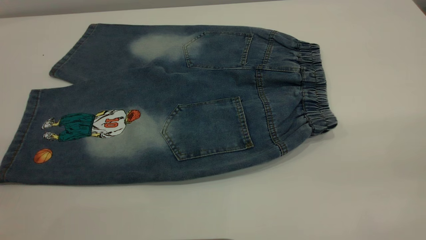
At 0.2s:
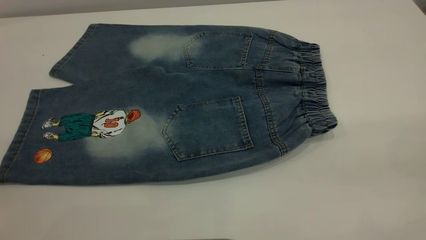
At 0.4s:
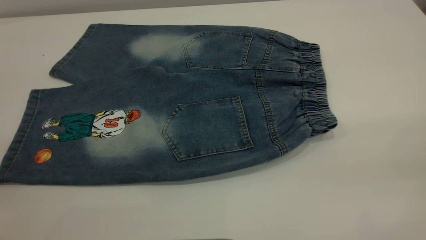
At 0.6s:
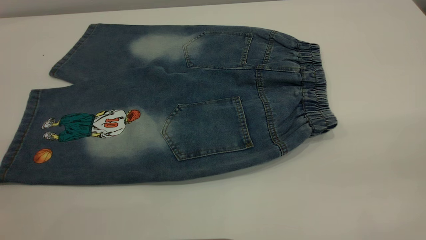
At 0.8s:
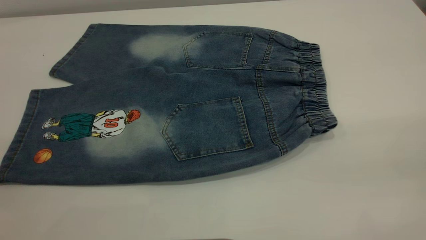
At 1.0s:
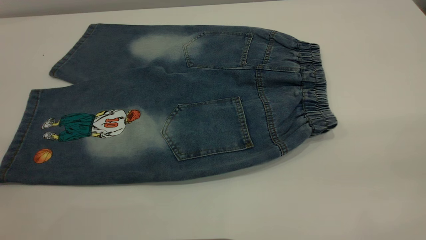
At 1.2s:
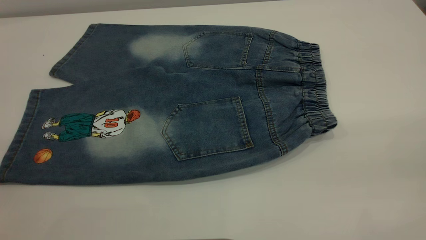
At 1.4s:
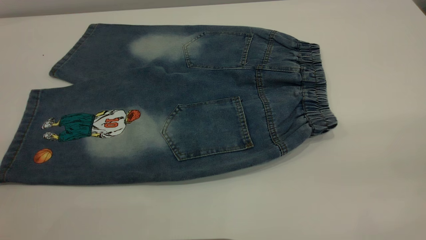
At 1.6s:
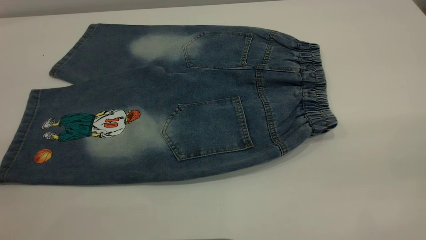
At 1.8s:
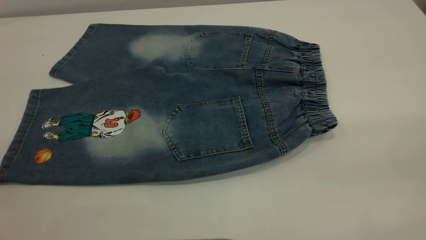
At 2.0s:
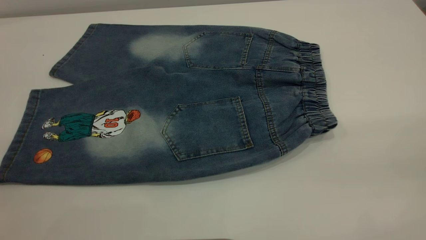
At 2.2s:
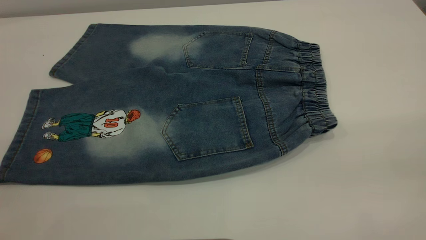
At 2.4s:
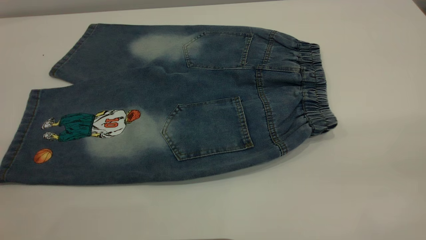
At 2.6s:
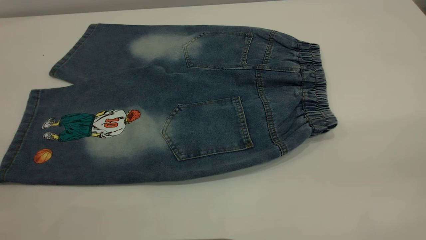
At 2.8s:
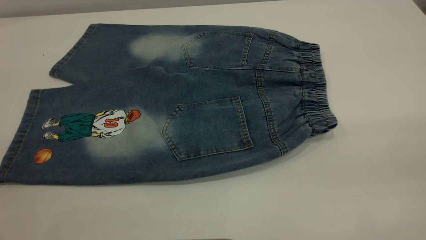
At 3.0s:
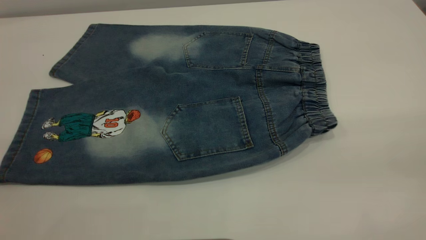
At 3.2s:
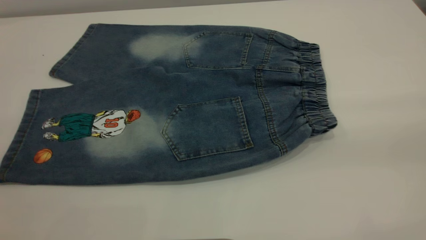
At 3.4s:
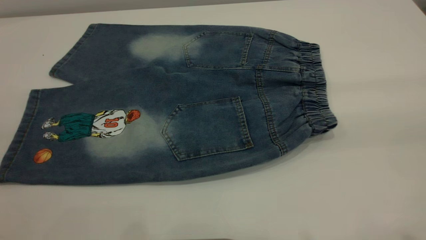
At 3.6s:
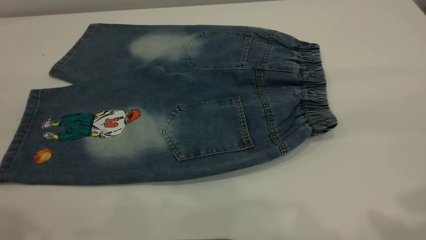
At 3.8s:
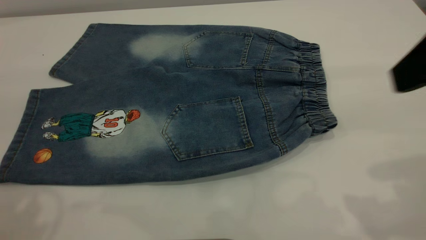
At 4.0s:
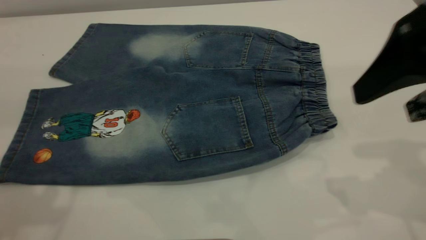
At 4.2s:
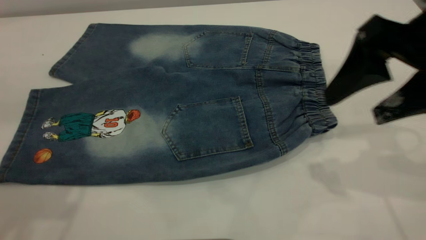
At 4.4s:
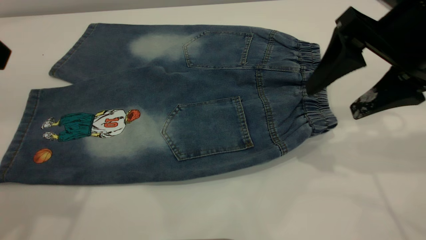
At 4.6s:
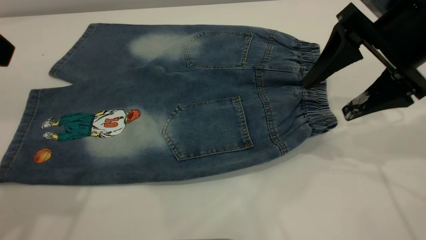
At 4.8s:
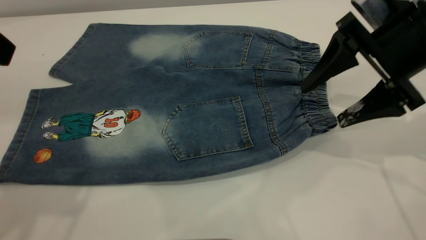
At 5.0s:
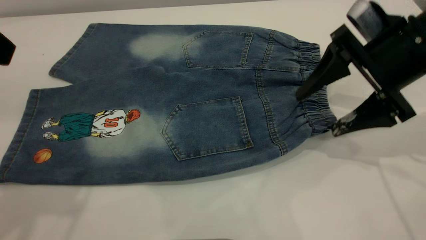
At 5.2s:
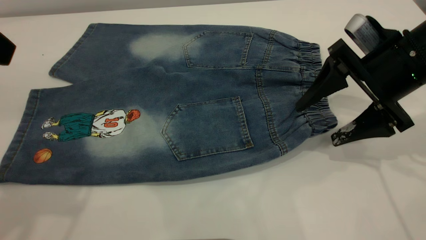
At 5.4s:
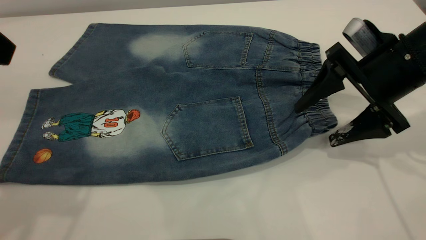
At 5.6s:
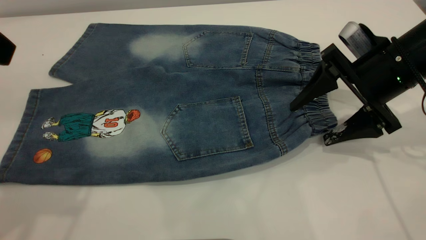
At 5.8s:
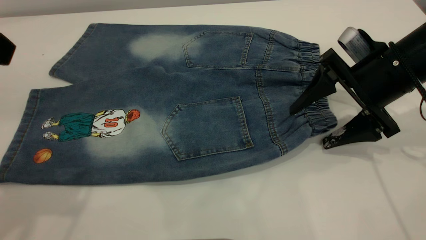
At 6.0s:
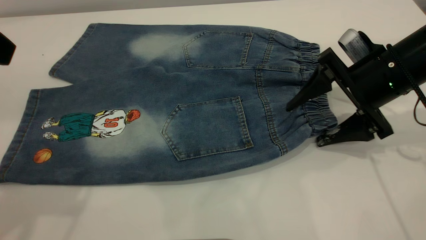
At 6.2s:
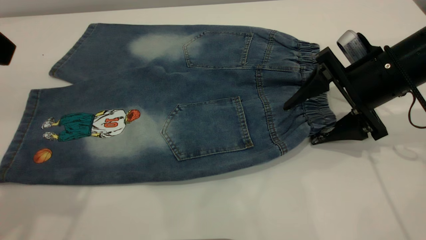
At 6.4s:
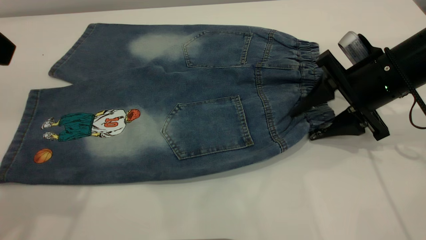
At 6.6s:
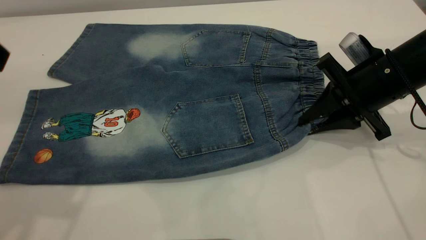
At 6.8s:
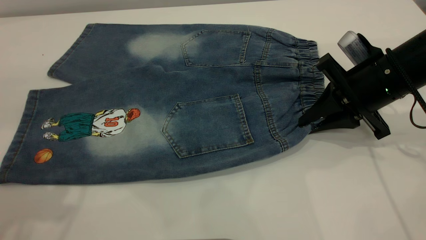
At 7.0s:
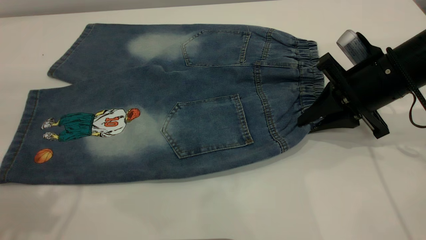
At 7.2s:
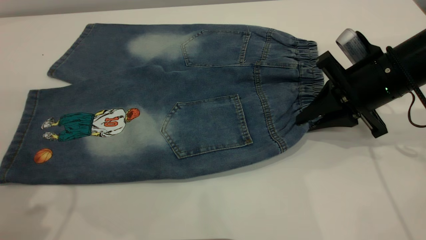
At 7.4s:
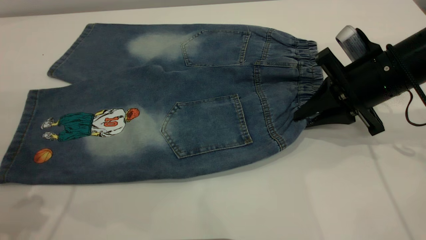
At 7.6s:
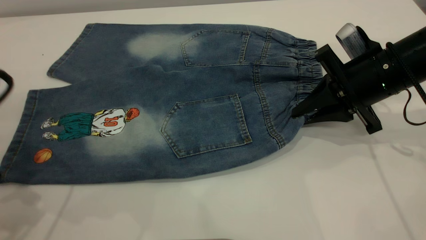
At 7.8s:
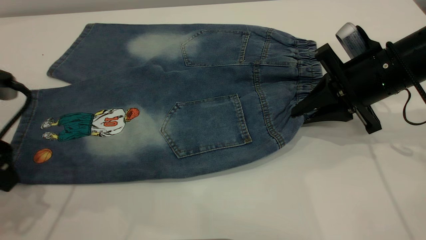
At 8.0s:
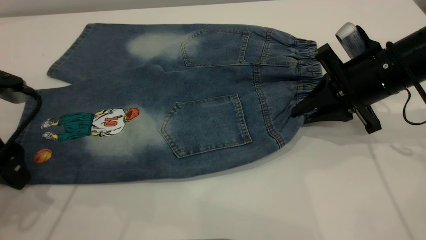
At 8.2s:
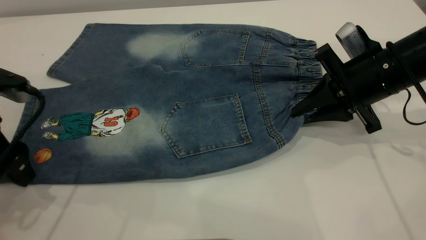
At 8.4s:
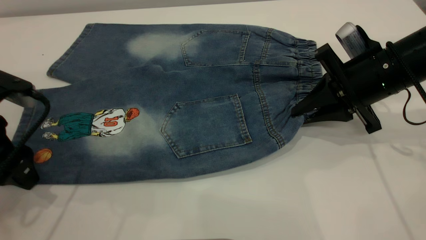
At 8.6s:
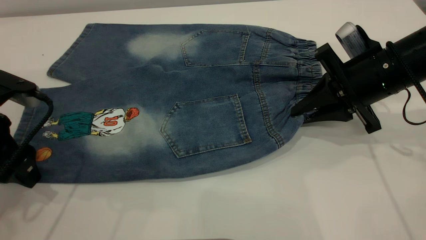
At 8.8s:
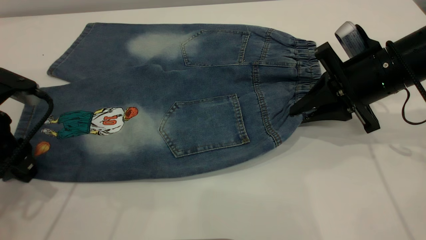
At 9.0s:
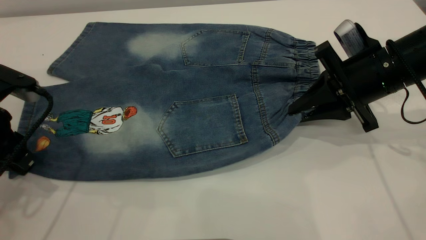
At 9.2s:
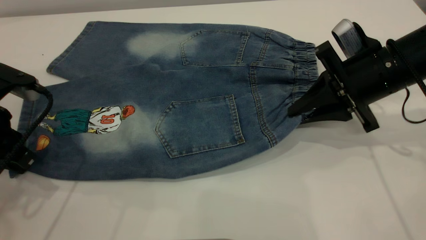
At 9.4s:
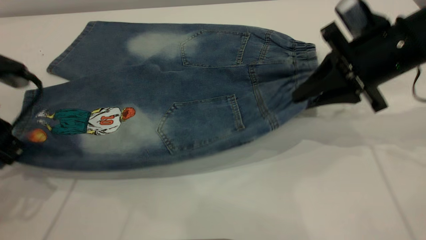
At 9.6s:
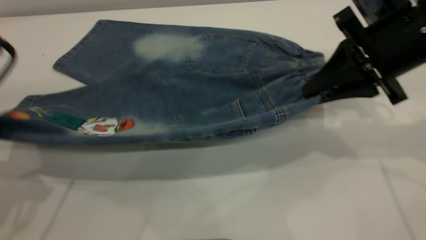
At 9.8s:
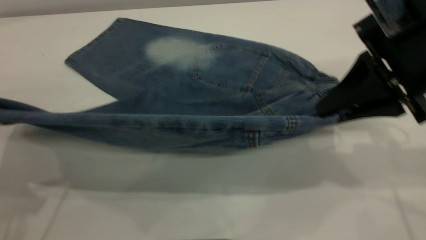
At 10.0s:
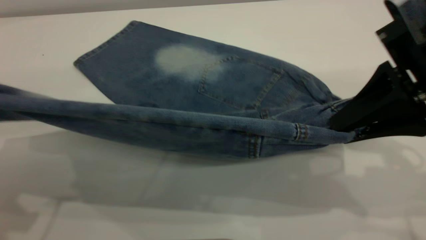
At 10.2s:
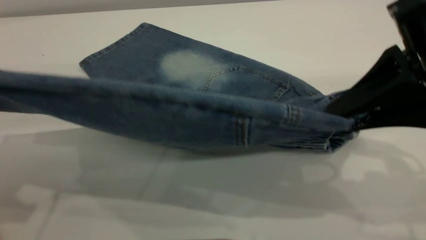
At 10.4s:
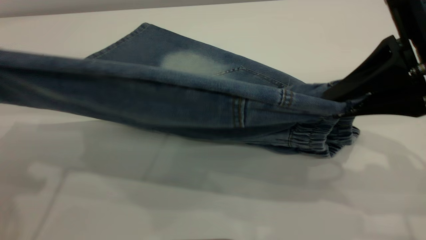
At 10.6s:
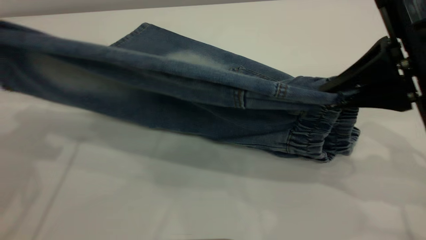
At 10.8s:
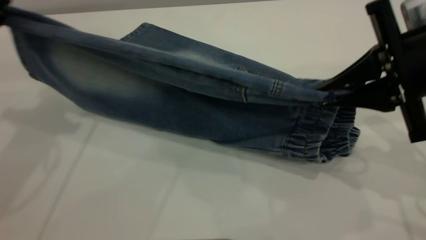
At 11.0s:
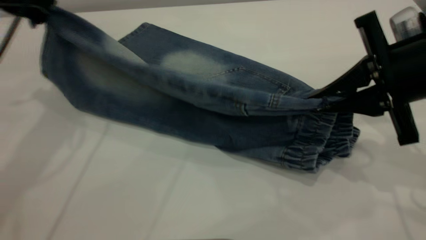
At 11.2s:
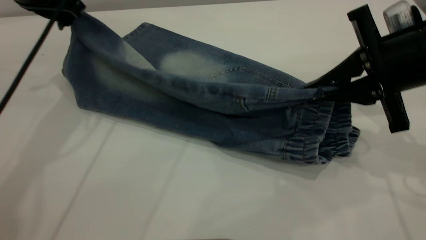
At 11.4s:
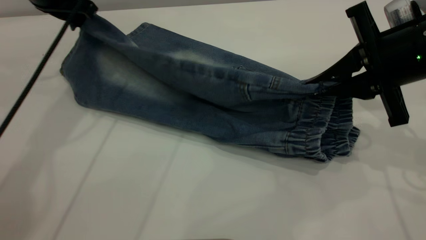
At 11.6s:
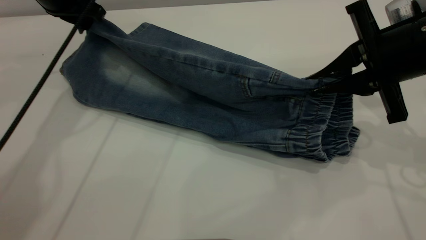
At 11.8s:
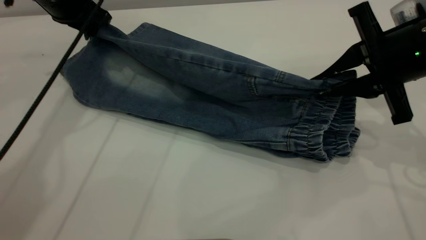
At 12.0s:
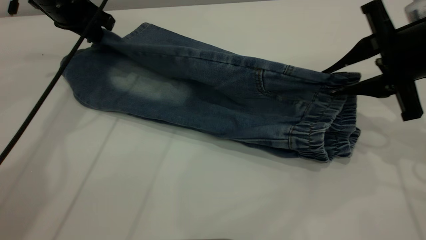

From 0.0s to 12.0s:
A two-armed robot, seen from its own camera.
From 0.0s to 1.6s: Both grippers stay about where they are.
From 3.0s to 4.4s: The right gripper is displaced forward and downward by about 30 cm.
From 4.4s to 6.0s: The right gripper is displaced downward by about 10 cm.
From 6.0s to 7.6s: The left gripper travels downward by roughly 15 cm. Meanwhile the right gripper closes.
From 7.6s to 9.0s: The left gripper is displaced downward by some 5 cm, and closes.
From 9.0s to 10.4s: The right gripper travels upward and backward by approximately 15 cm, while the left gripper moves upward, approximately 20 cm.
From 10.4s to 12.0s: The right gripper shifts some 10 cm forward and downward. Meanwhile the left gripper moves forward and downward, roughly 25 cm, and opens.

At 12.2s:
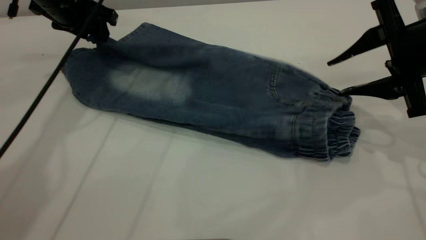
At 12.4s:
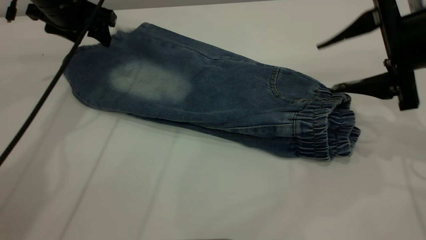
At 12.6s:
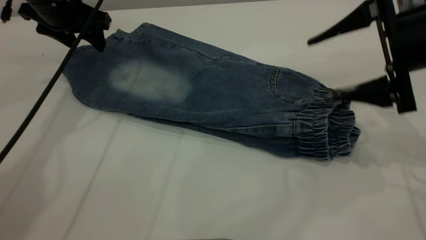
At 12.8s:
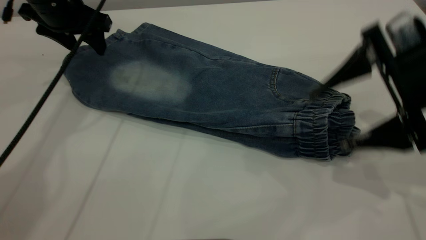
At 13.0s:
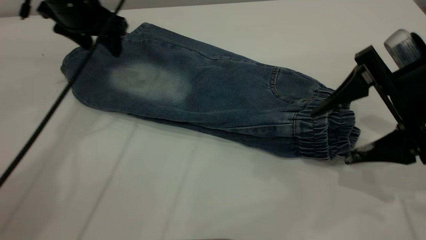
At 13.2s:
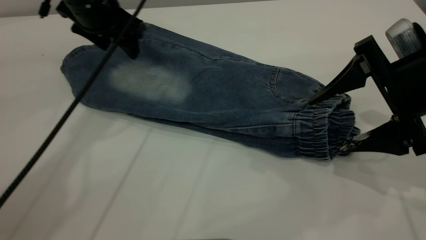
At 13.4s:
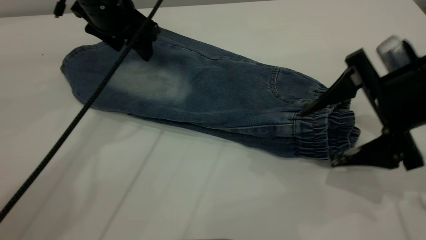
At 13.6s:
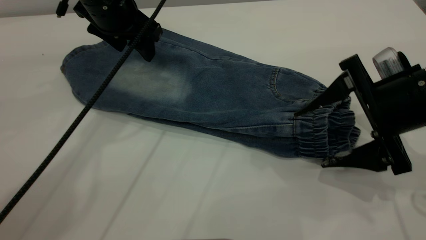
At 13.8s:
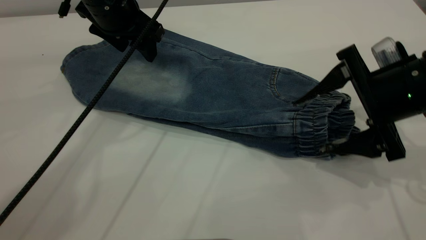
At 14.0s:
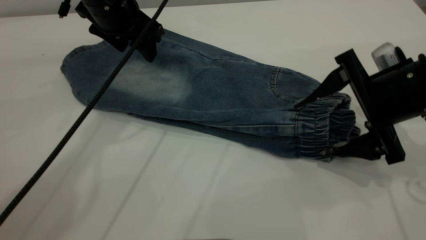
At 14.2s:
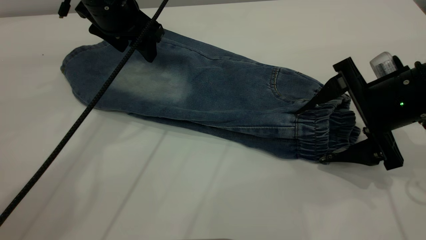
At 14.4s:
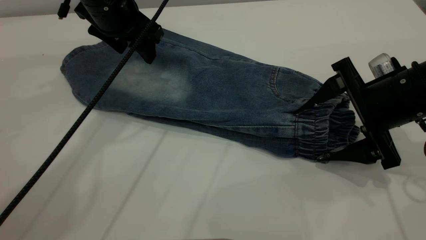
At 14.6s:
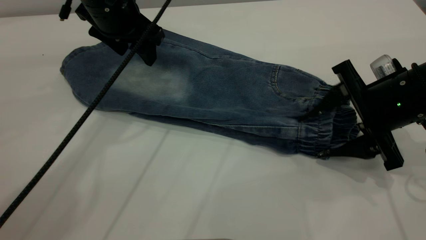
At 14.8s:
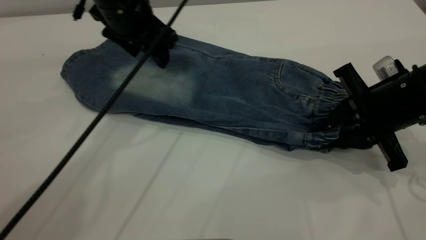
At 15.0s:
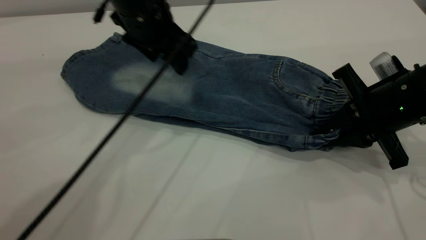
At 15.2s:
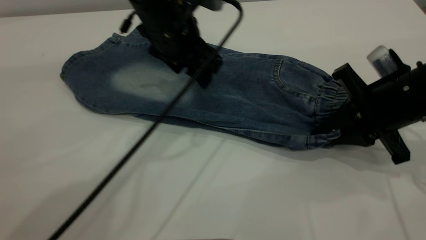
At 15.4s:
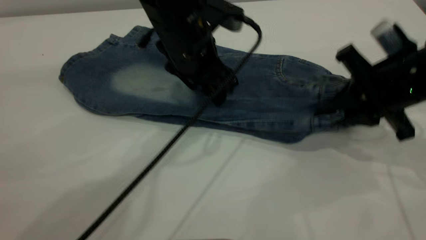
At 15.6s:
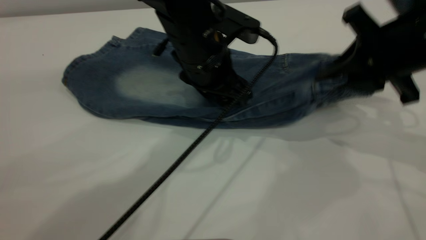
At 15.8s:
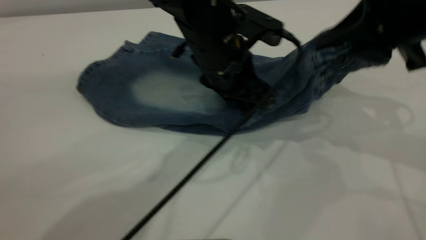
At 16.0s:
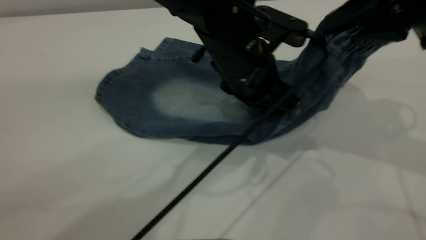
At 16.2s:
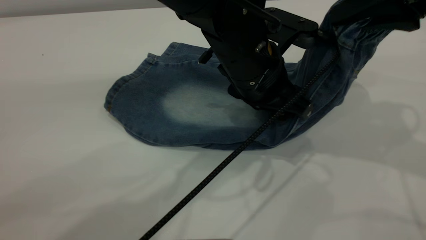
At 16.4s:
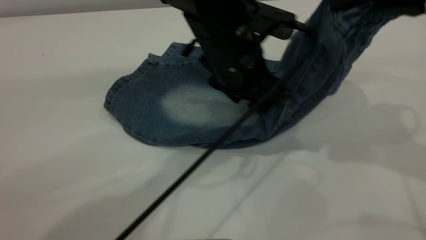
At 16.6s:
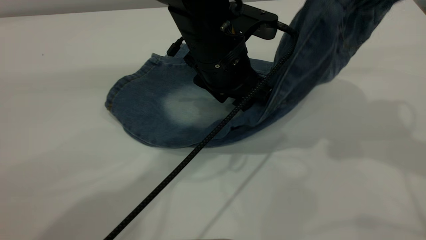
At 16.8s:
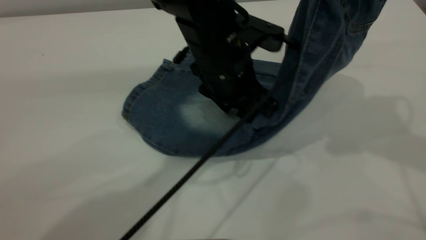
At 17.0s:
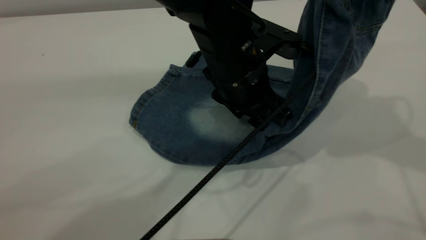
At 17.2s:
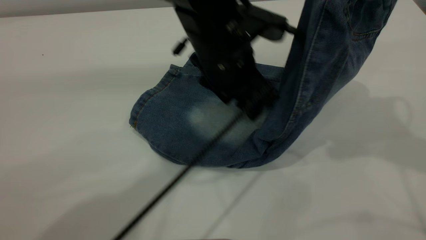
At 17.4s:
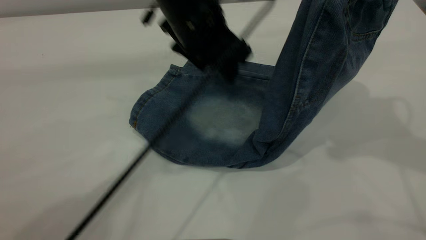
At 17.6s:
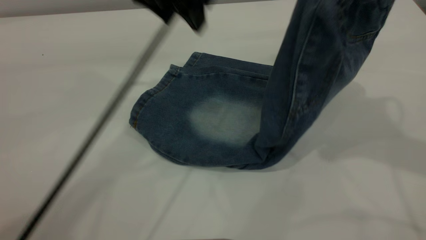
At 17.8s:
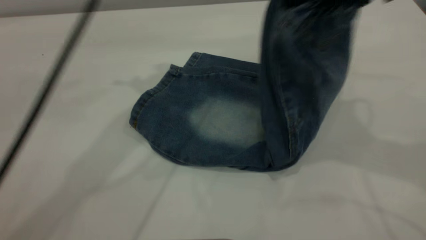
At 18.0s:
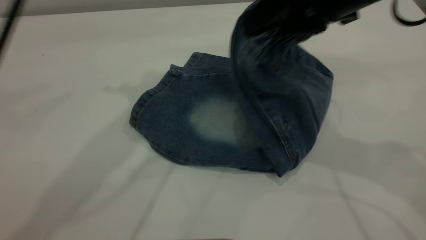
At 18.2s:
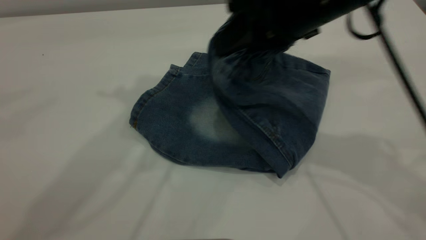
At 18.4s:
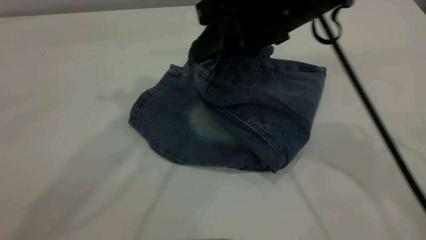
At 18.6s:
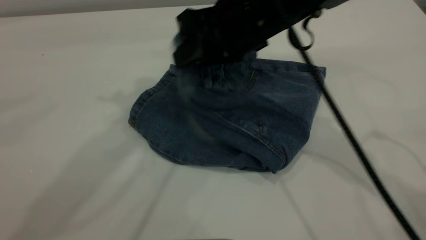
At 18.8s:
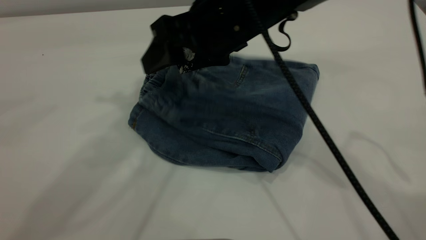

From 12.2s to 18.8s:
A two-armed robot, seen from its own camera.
From 12.2s to 13.8s: The left gripper is displaced to the right by approximately 10 cm; the right gripper changes place by some 5 cm, and opens up.
From 13.8s to 15.4s: The left gripper travels to the right and backward by approximately 15 cm. The right gripper closes up.
From 15.4s to 17.2s: The right gripper travels upward by about 15 cm.
From 17.2s to 18.8s: The left gripper heads upward and to the left, covering approximately 30 cm. Meanwhile the right gripper travels to the left and downward by roughly 20 cm, and opens its fingers.
